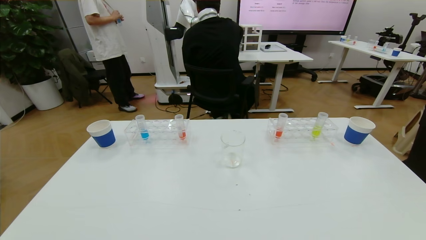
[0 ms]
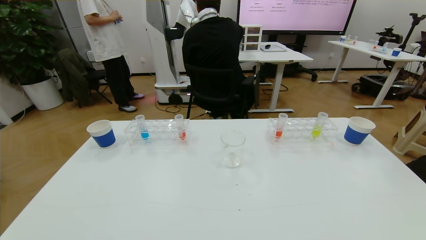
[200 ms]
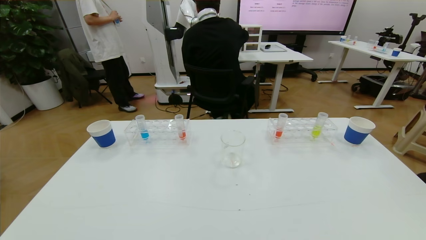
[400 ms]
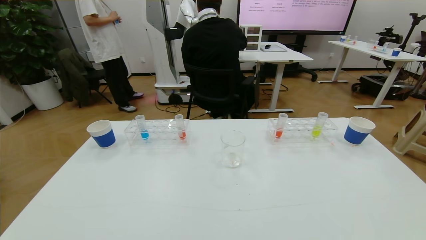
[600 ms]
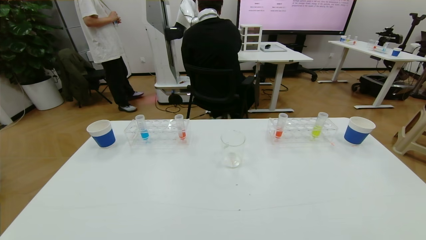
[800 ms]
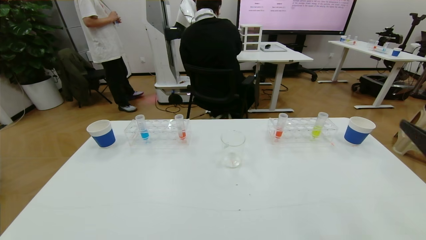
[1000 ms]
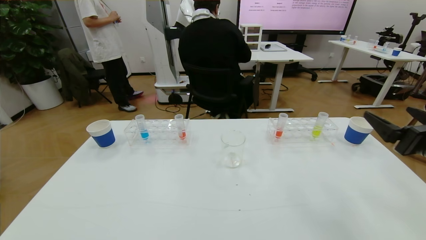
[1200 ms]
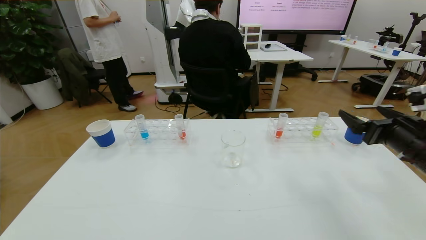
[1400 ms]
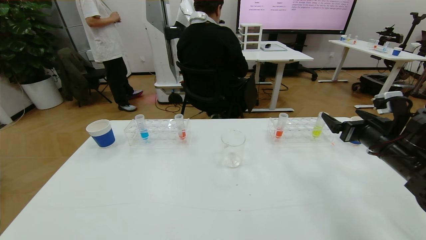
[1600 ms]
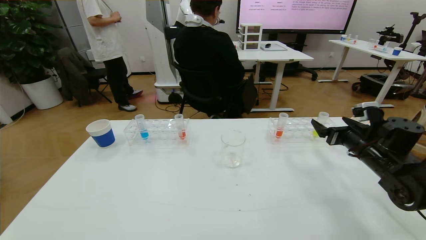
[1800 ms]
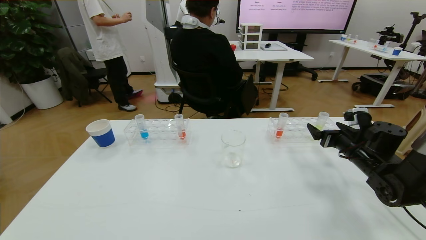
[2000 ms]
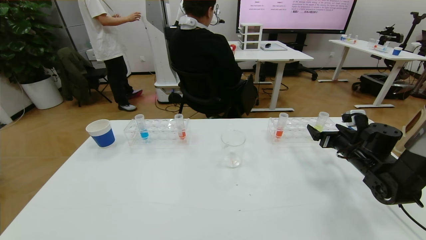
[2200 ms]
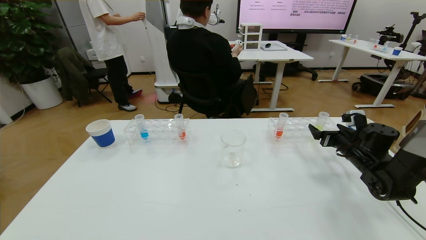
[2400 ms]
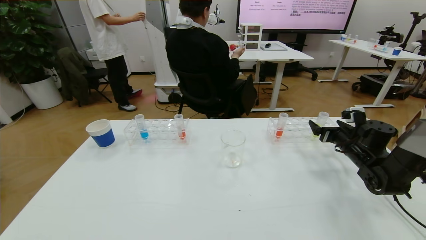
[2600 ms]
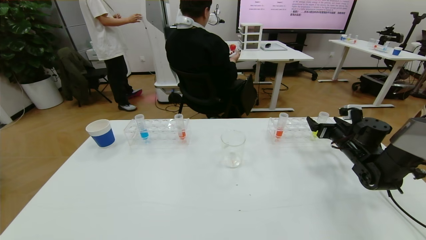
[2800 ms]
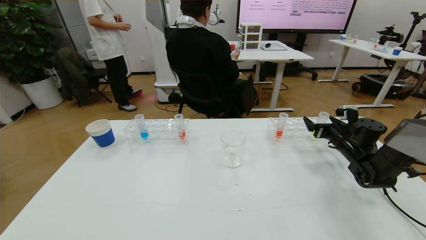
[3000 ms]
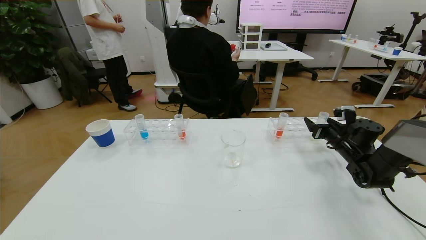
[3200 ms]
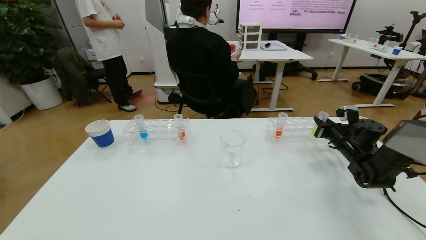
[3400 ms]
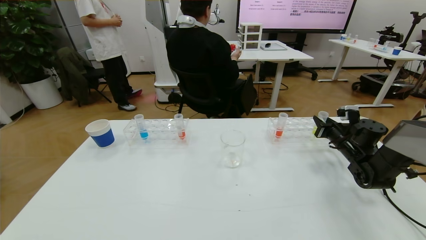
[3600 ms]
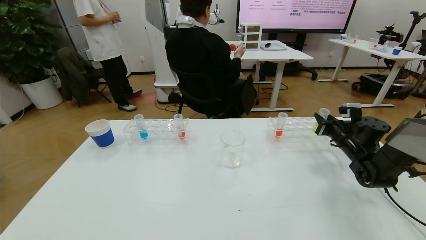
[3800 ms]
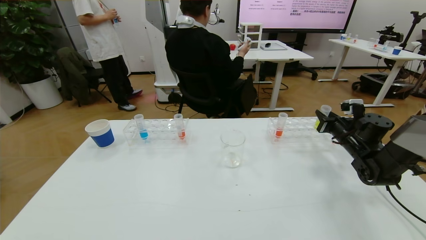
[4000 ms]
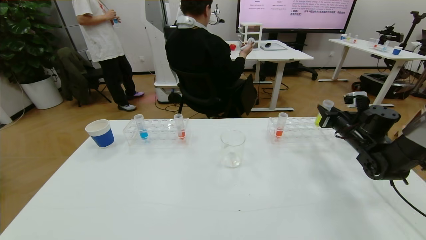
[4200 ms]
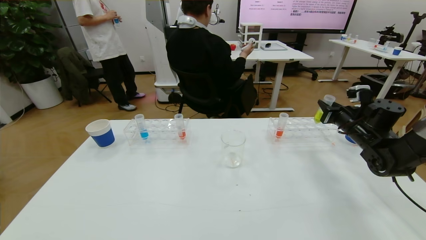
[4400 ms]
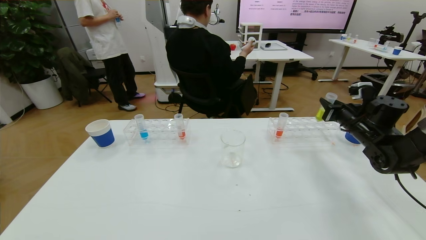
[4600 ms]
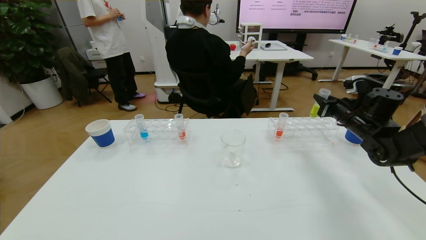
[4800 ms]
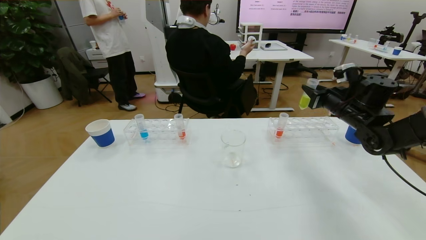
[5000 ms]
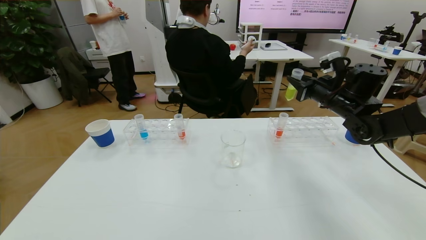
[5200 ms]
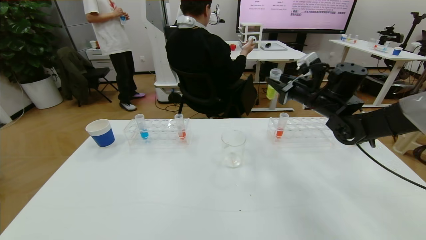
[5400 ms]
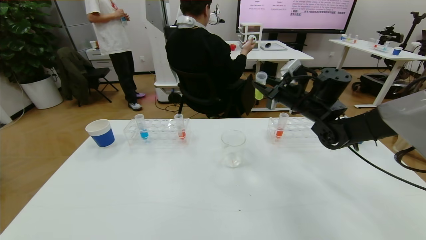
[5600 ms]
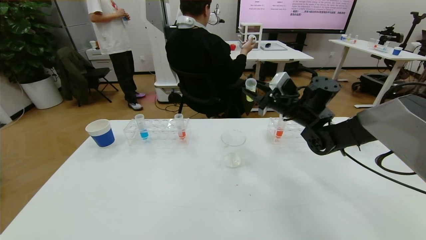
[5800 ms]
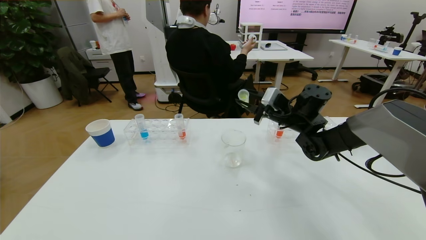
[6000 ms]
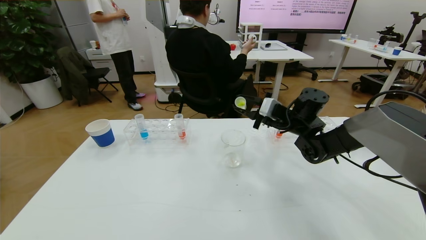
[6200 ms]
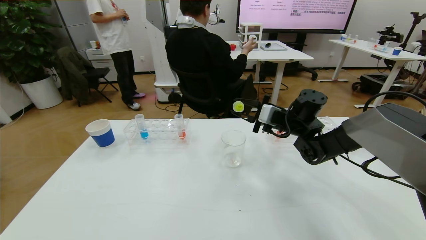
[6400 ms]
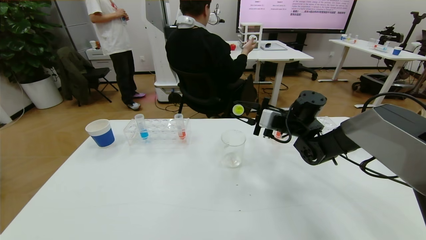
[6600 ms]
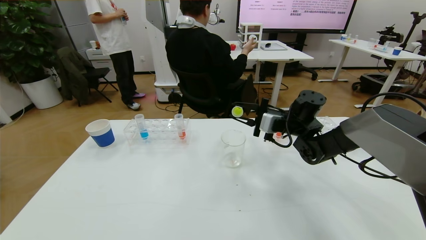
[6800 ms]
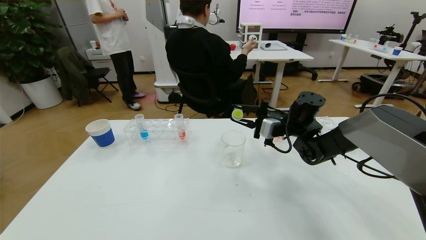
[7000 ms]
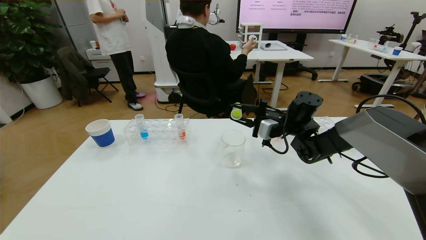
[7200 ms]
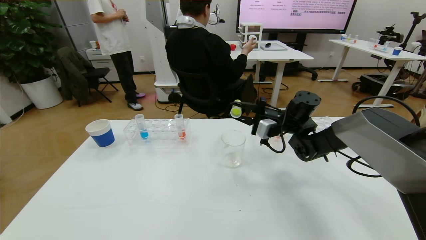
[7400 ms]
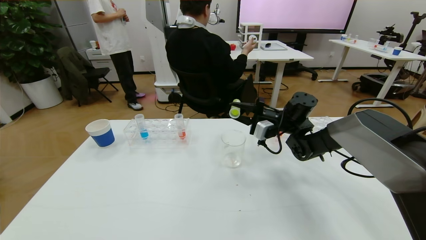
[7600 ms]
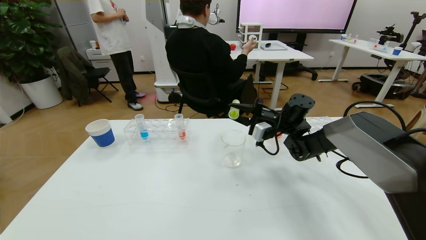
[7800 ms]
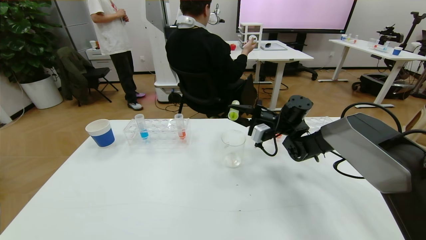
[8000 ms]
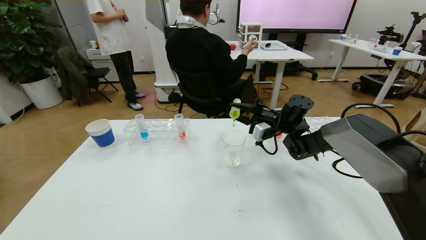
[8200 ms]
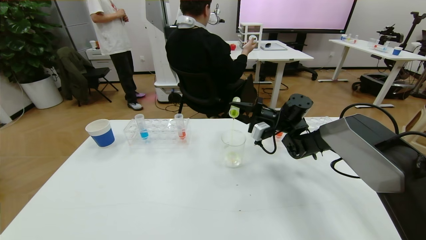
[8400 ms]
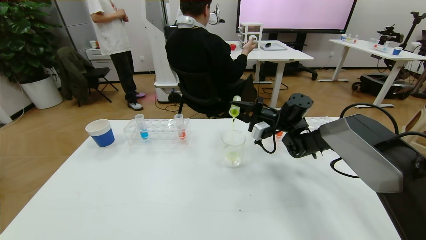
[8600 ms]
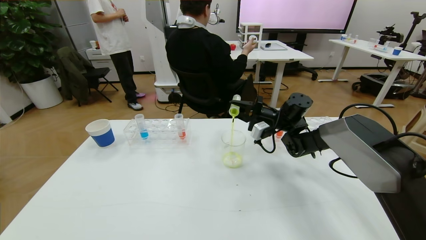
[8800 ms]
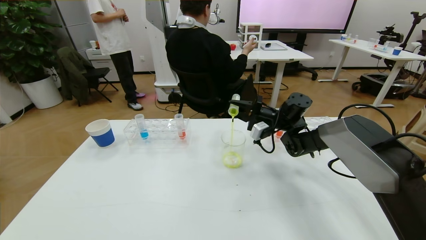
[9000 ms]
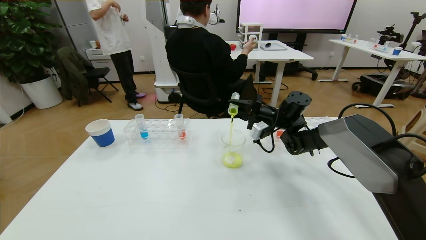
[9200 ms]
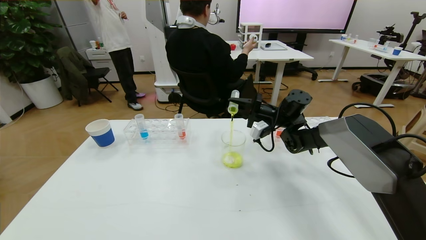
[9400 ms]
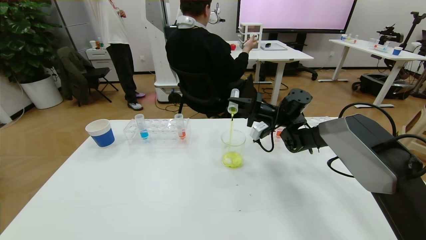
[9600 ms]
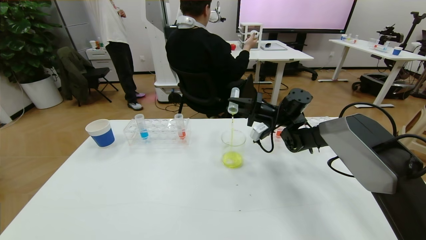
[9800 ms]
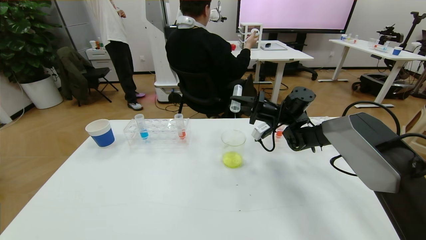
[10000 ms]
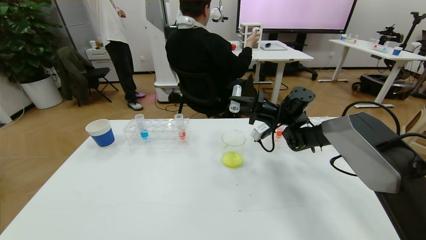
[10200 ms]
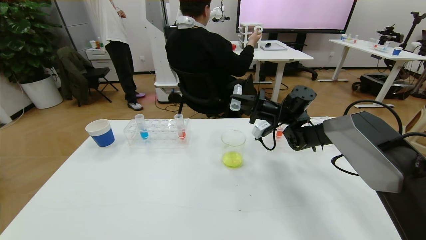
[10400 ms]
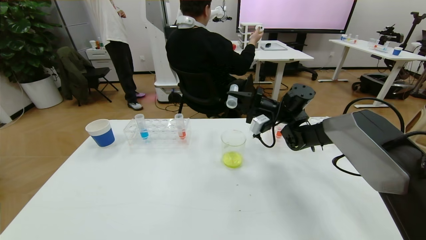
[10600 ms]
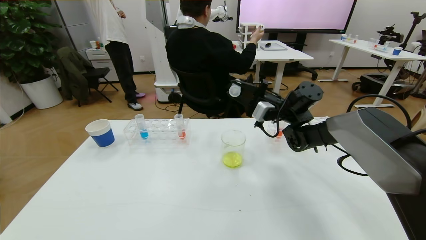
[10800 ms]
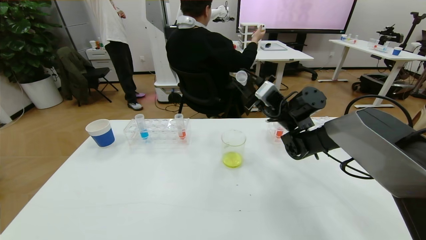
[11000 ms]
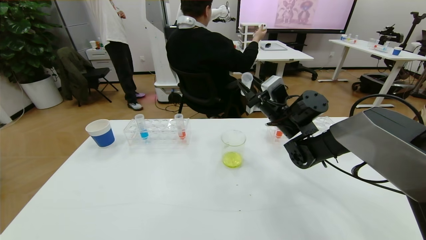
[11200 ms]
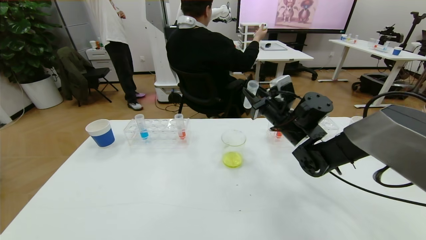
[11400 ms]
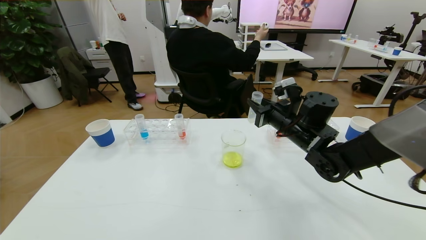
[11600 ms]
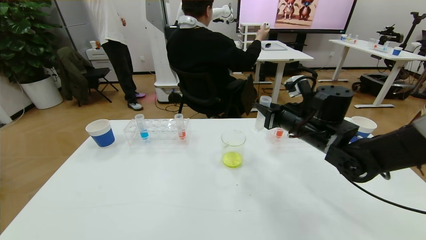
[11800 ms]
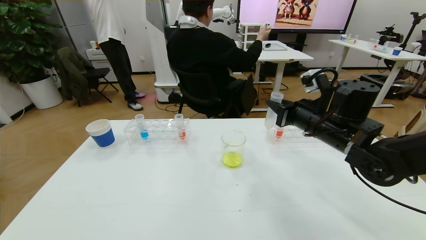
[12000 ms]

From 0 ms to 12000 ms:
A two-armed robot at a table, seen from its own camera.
Task of the whole recording: pick up the test tube with yellow pigment and the test tube with blue pigment by grippers and pour them into the beaker.
From 0 ms to 1600 ms: The right gripper goes roughly 30 cm forward.
From 1600 ms to 3000 ms: The right gripper goes some 15 cm forward and downward.
From 3000 ms to 4400 ms: The right gripper moves upward, roughly 5 cm, and closes its fingers.
From 4400 ms to 6000 ms: The right gripper heads to the left, covering some 20 cm.
From 7600 ms to 9000 ms: The grippers stay close to where they were, moving slightly.
From 9000 ms to 10400 ms: There are only small adjustments of the grippers.
From 10400 ms to 12000 ms: The right gripper heads backward, covering roughly 15 cm.

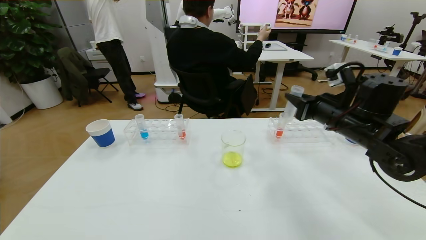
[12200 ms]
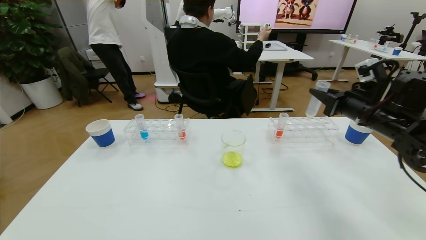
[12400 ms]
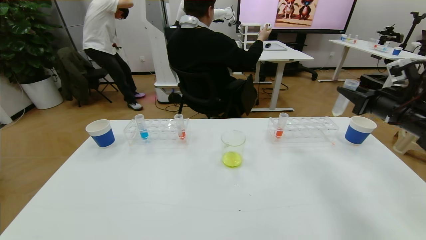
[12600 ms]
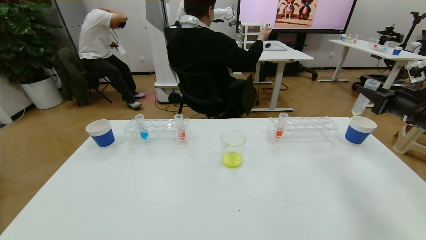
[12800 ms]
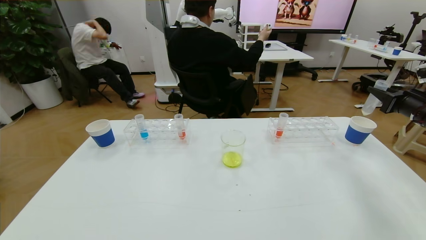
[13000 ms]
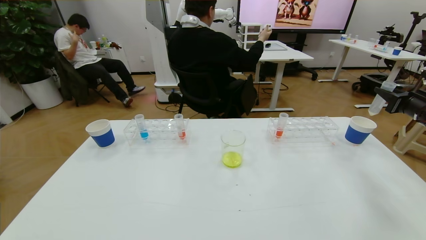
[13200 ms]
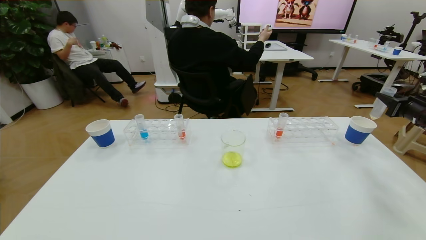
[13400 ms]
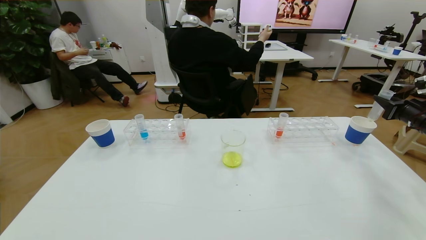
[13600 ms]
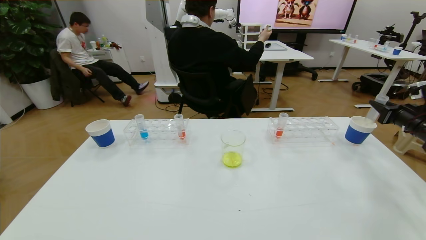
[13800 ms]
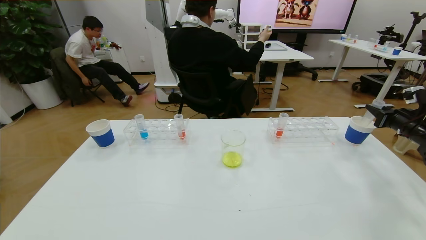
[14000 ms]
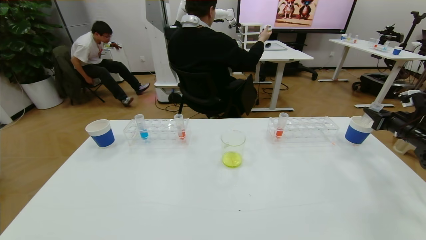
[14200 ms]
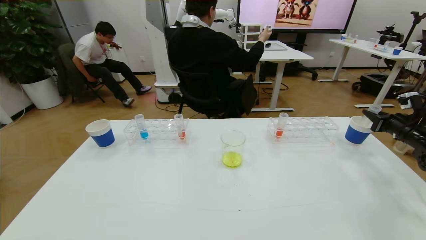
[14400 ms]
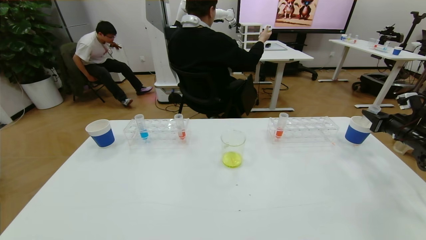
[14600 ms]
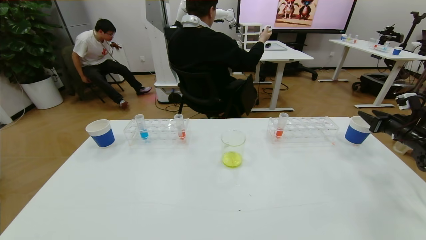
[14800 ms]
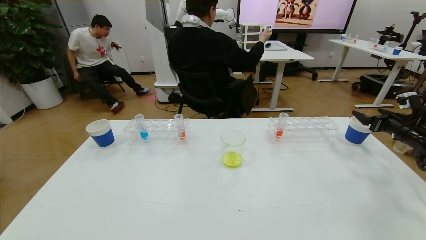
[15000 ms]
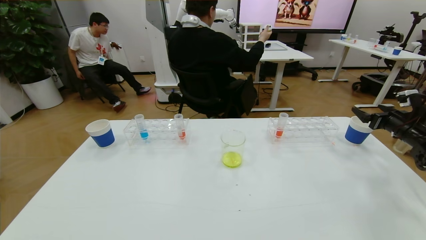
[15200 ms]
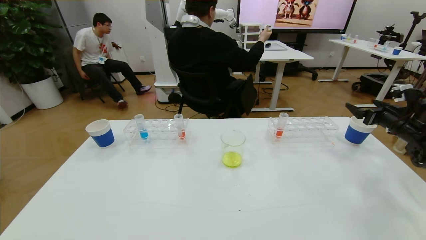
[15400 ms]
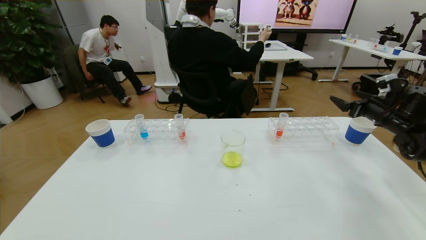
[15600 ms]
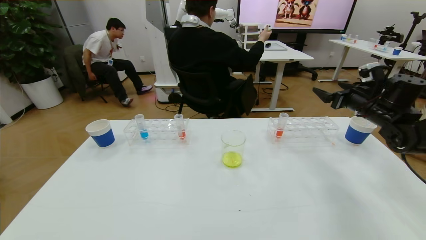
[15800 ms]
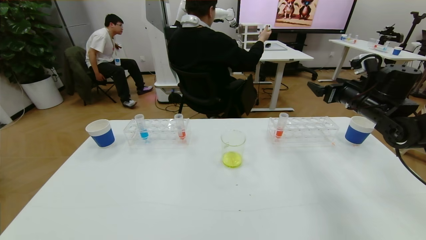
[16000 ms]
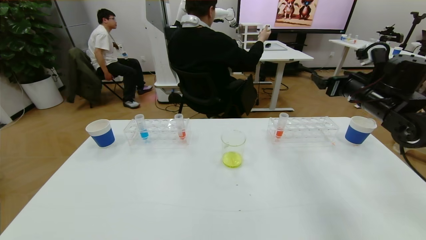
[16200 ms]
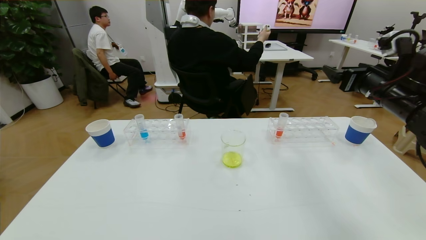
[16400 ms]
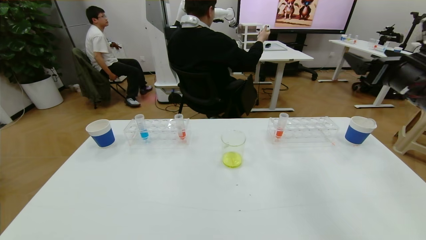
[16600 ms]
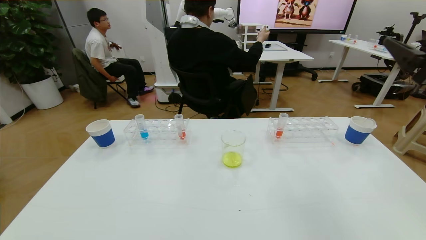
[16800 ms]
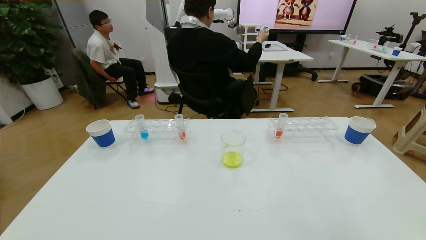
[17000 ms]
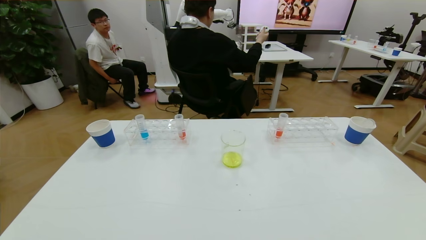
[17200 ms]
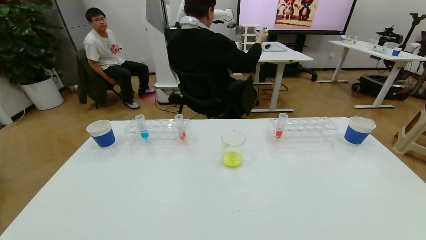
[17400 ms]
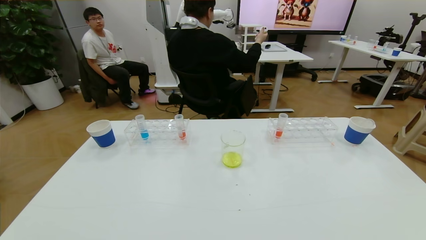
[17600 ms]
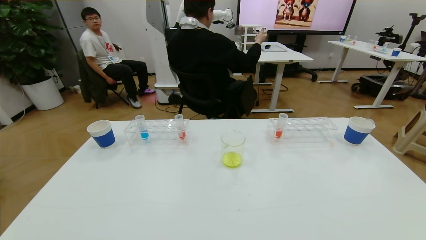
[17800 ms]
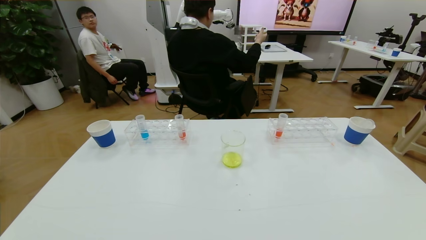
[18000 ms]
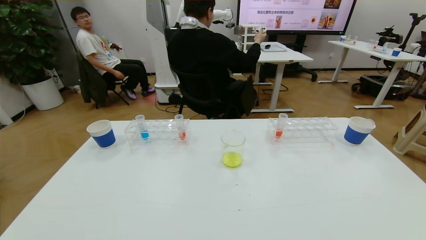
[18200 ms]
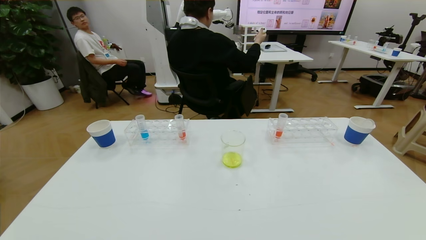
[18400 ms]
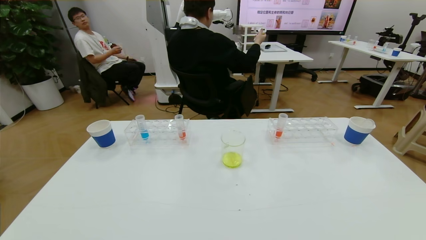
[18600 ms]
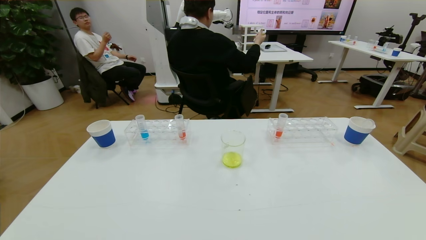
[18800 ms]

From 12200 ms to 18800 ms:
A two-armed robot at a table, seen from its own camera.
Task of the whole recording: pick up the test tube with yellow pigment and the test tube with blue pigment by grippers and pour them into the beaker.
Step, from 12200 ms to 18400 ms: Pour the yellow reagent into the graduated cylinder and place the test tube into the paper cup.
From 12200 ms to 13800 ms: The right gripper shifts approximately 25 cm to the right.
From 13800 ms to 15400 ms: The right gripper opens up.
From 15400 ms to 17200 ms: The right gripper goes some 40 cm backward, upward and to the left.
From 17200 ms to 18800 ms: The right gripper travels downward by roughly 20 cm.
